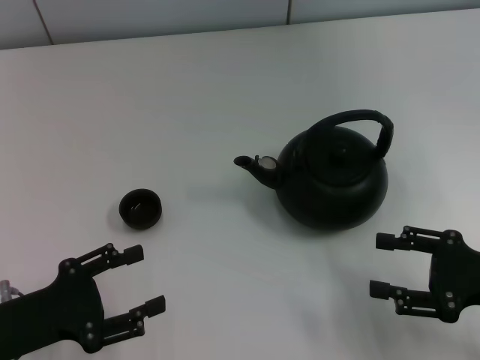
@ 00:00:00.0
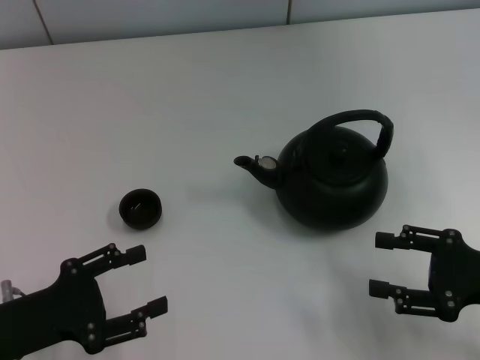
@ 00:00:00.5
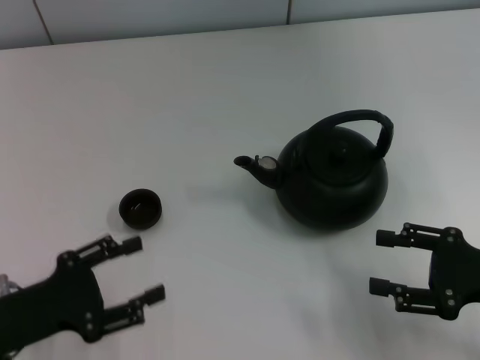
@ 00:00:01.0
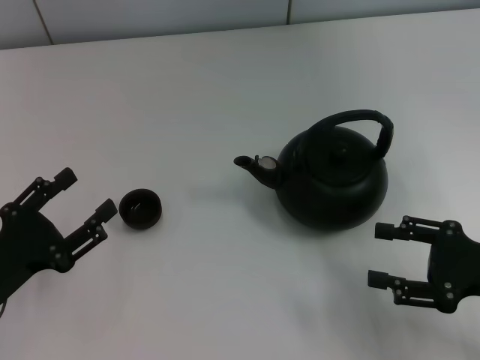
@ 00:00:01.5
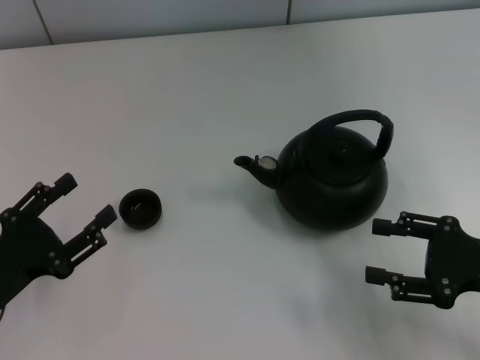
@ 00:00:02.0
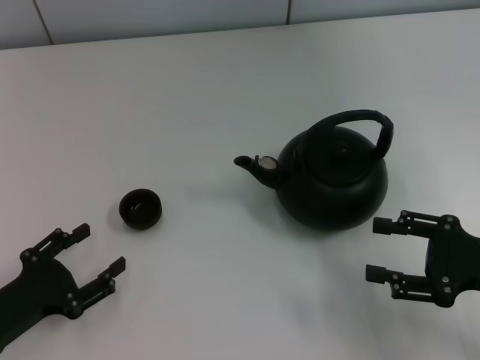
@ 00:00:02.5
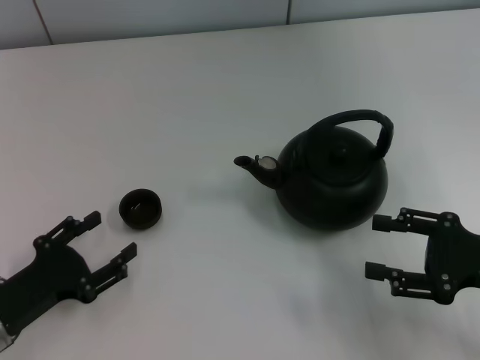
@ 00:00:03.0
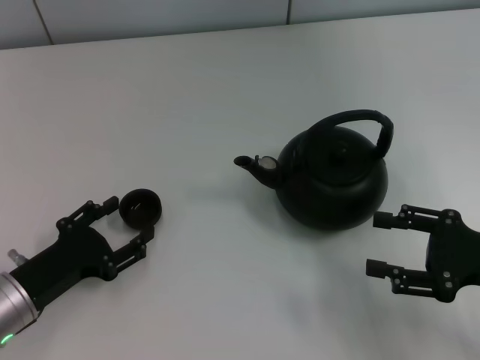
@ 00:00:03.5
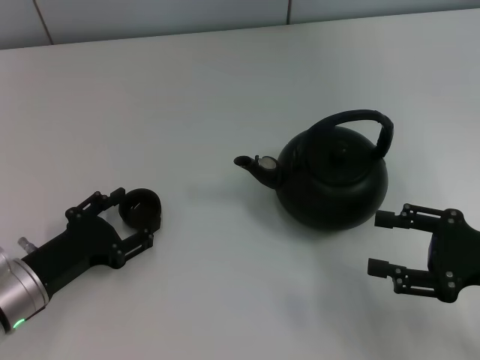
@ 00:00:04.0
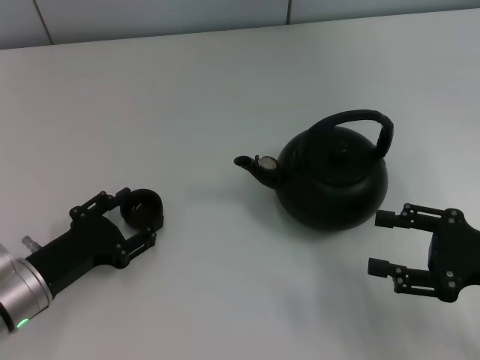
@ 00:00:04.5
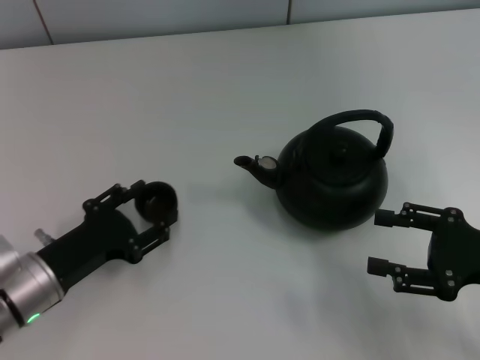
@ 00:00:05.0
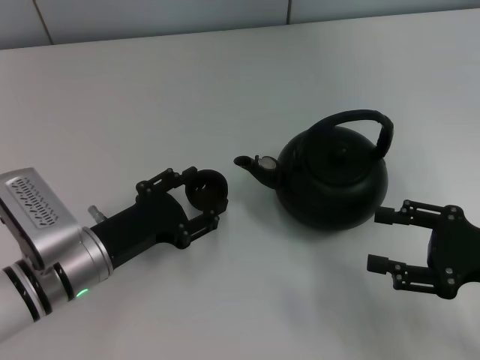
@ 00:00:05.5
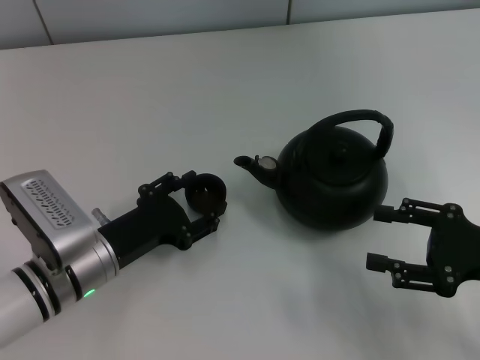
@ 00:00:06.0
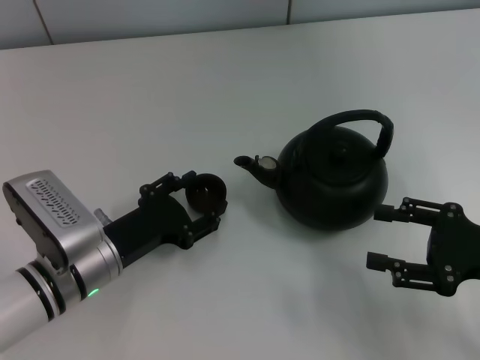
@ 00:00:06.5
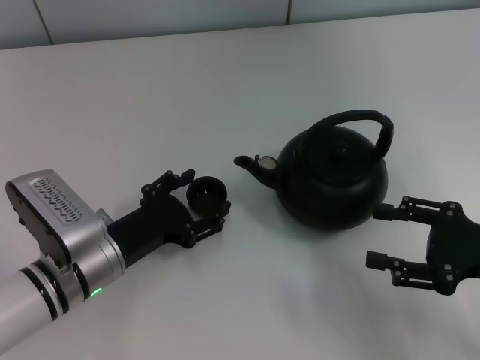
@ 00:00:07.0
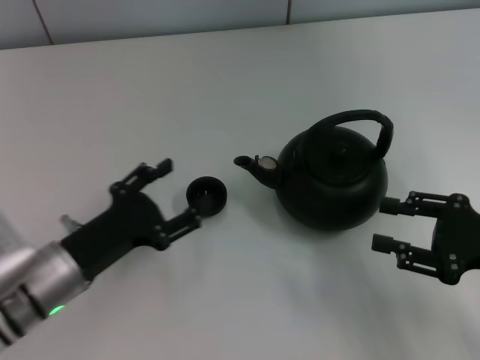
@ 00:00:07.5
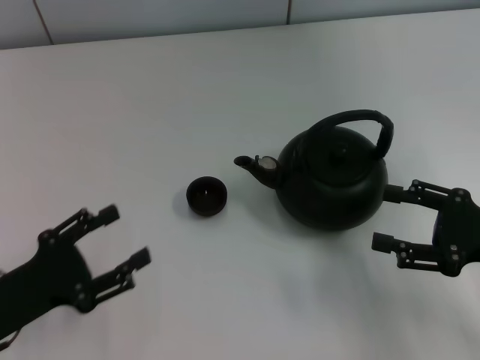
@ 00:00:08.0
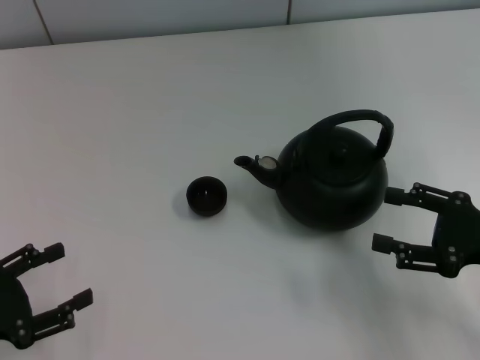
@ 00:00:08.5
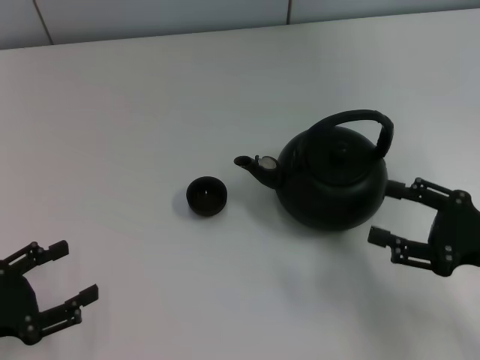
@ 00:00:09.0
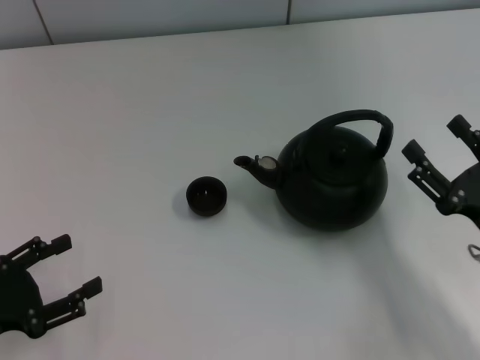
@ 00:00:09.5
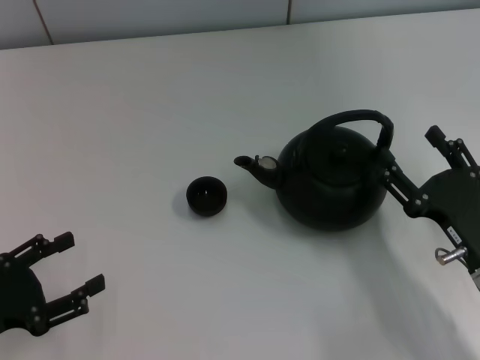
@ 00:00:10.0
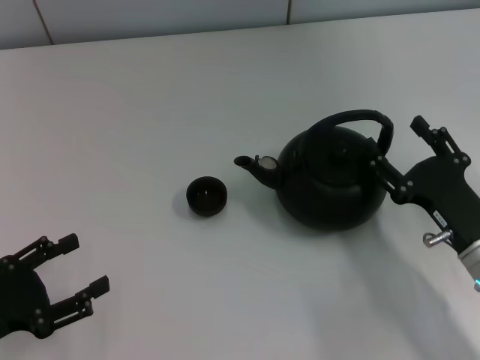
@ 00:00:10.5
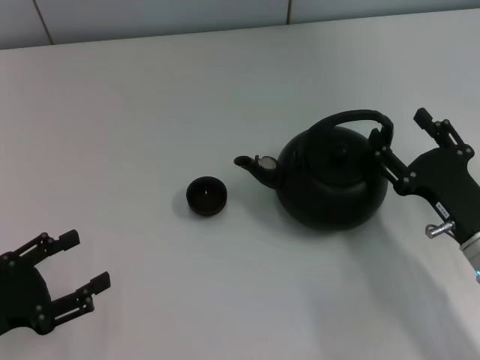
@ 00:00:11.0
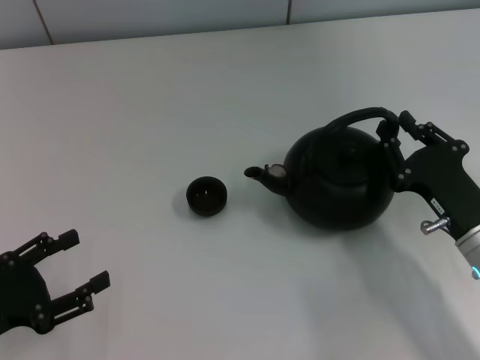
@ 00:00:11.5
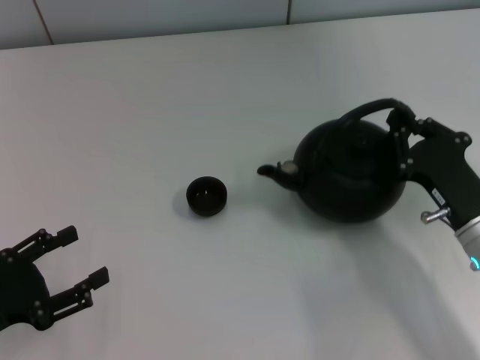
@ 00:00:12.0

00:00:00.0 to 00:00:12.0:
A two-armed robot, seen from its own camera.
Task of the whole recording: Grasp the handle of the teapot with one hand and pour tea into the teacup.
Step, 00:00:00.0 to 00:00:05.0: Pick up the teacup with the left gripper.
Step, 00:00:05.5 to 00:00:09.0: Place the teacup in the center of view with the left gripper.
00:00:02.0 to 00:00:04.0: The left gripper shifts by some 5 cm.
00:00:04.0 to 00:00:06.0: The left gripper goes roughly 5 cm to the right.
00:00:06.0 to 00:00:08.0: The left gripper moves to the left and backward, about 15 cm, and opens its fingers.
00:00:08.0 to 00:00:10.0: The right gripper is displaced to the left and downward by about 10 cm.
00:00:10.0 to 00:00:12.0: The right gripper closes.

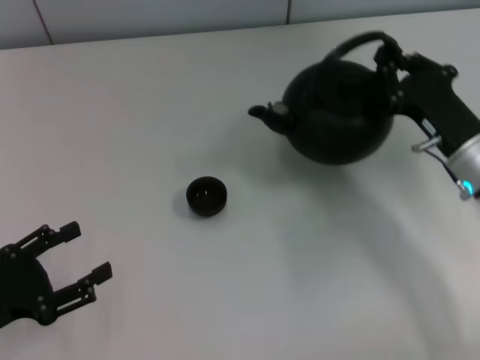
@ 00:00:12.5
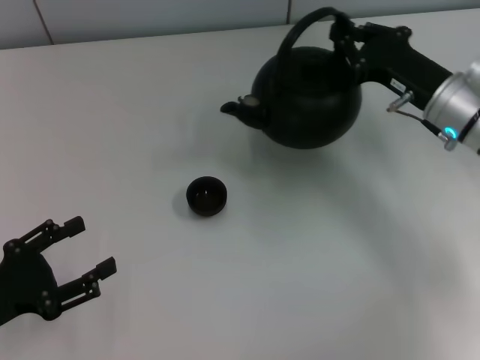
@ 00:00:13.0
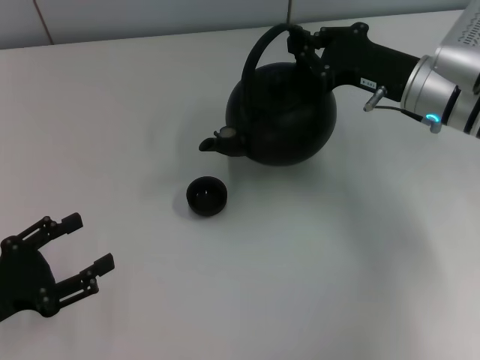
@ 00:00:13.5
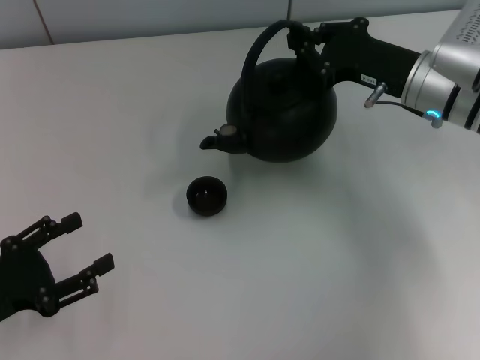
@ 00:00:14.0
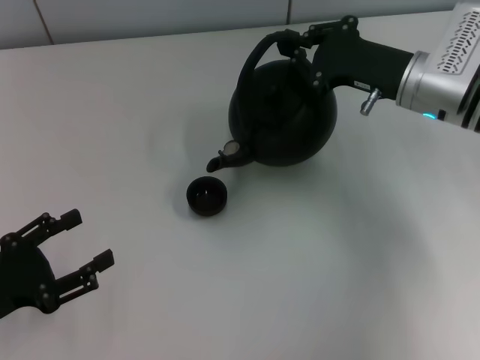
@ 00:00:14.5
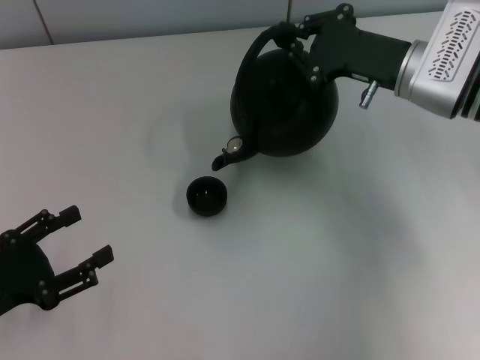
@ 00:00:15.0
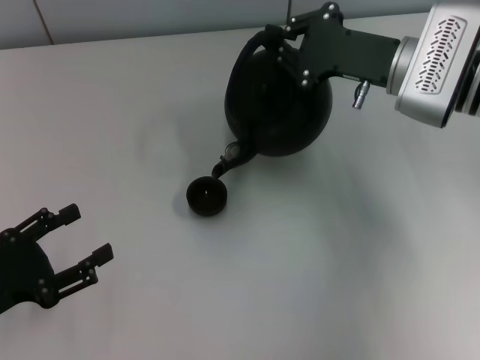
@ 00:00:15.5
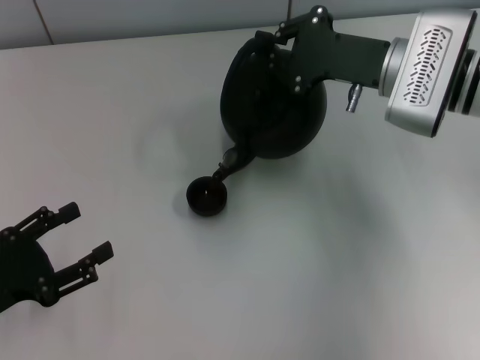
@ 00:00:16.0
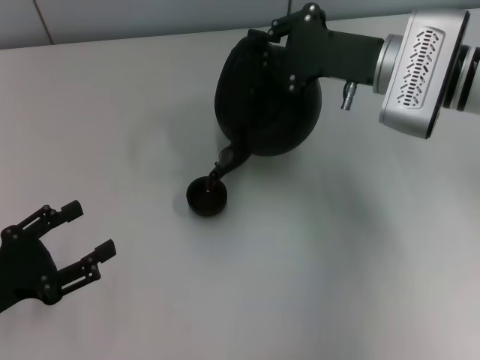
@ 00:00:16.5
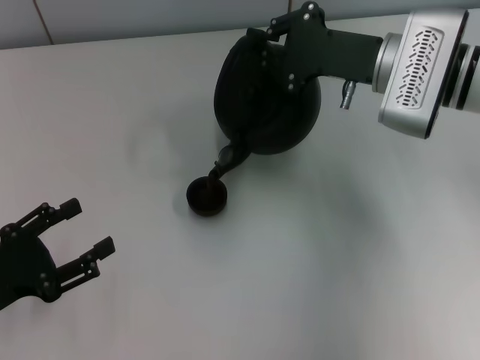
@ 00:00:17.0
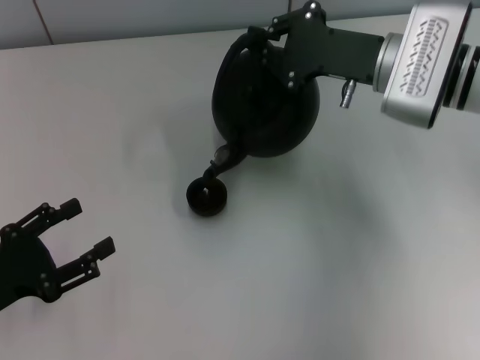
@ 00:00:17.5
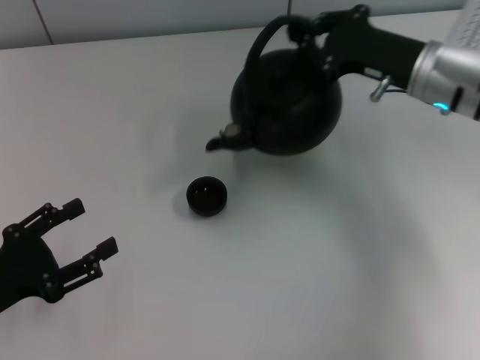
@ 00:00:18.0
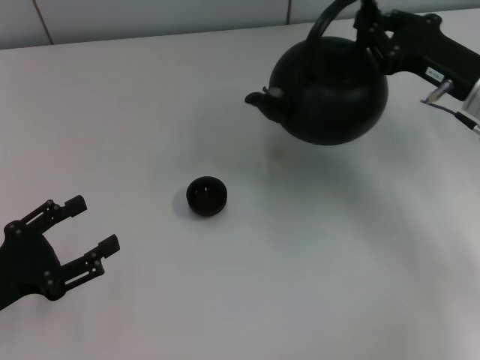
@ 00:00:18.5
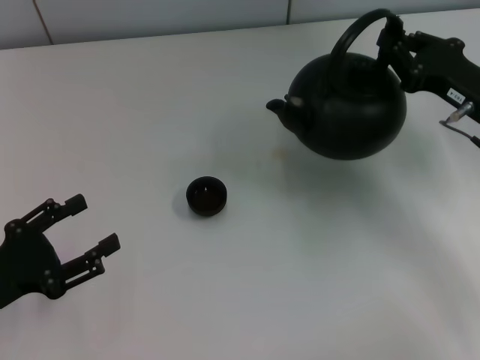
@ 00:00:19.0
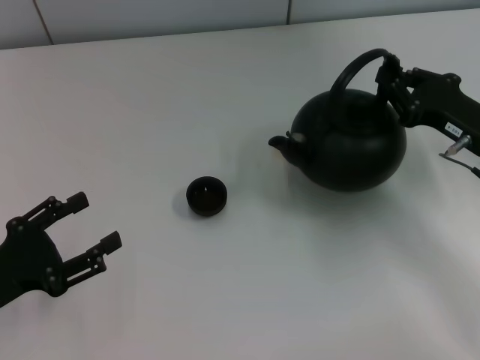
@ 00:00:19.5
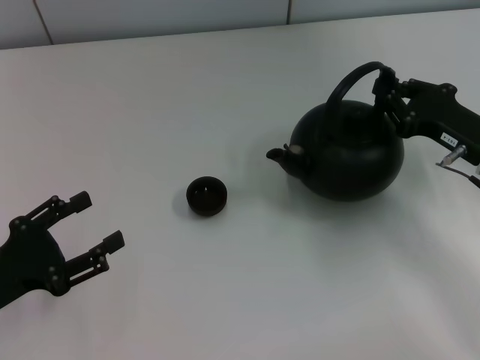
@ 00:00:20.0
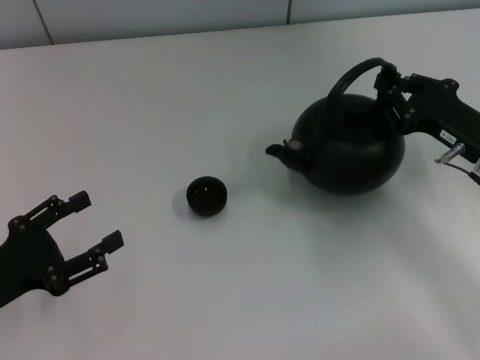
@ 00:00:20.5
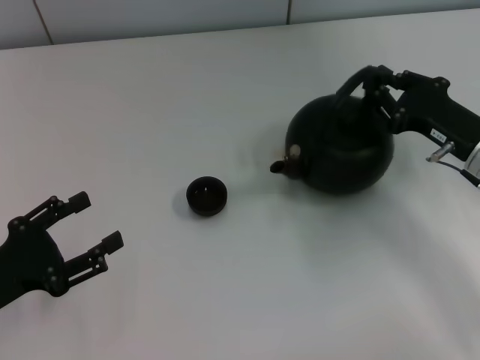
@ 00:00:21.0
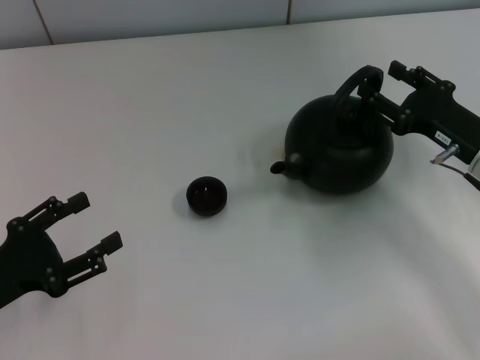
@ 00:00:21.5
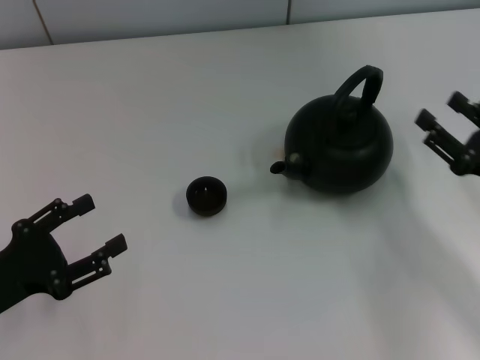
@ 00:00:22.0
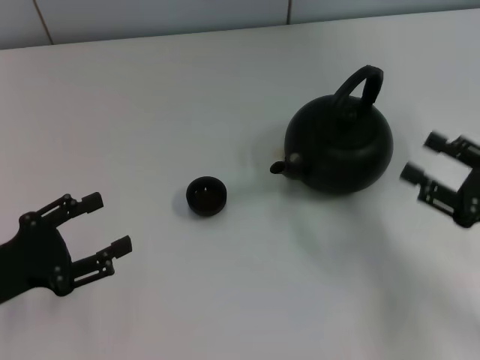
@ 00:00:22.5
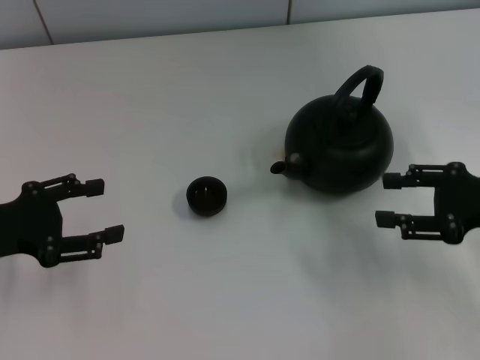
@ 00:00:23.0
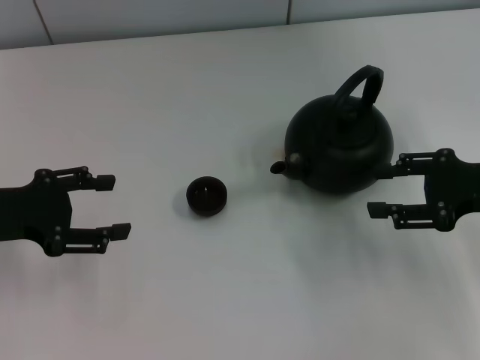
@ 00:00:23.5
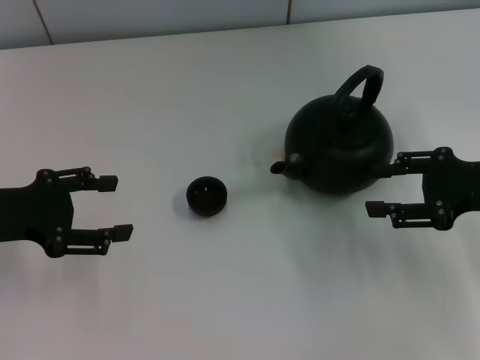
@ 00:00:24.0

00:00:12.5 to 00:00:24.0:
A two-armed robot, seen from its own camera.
Task of the whole recording: Grasp the handle of the teapot with one hand and pour tea into the teacup.
Step, 00:00:18.5 to 00:00:22.0: Put down the teapot with the right gripper.
00:00:12.5 to 00:00:14.5: The right gripper is displaced forward and upward by approximately 10 cm.
00:00:16.5 to 00:00:18.5: The right gripper shifts roughly 10 cm to the right.
00:00:18.5 to 00:00:20.0: The right gripper ends up roughly 5 cm from where it was.
00:00:20.0 to 00:00:22.0: The right gripper travels backward by some 5 cm, and opens.
00:00:22.0 to 00:00:24.0: The left gripper travels forward and upward by approximately 10 cm. Meanwhile the right gripper moves upward, some 5 cm.
